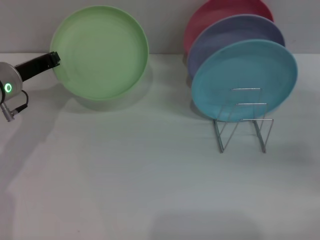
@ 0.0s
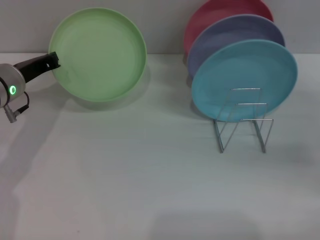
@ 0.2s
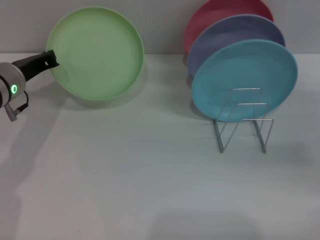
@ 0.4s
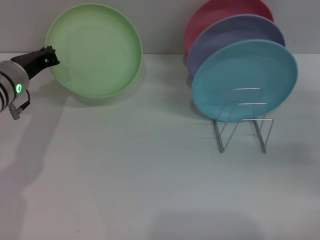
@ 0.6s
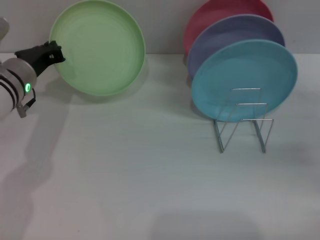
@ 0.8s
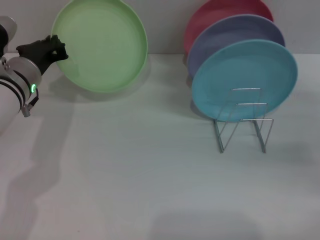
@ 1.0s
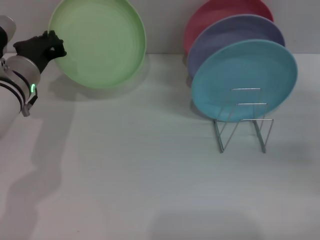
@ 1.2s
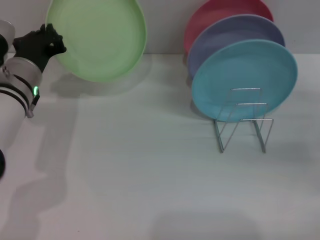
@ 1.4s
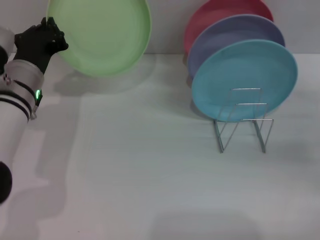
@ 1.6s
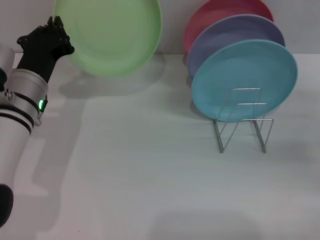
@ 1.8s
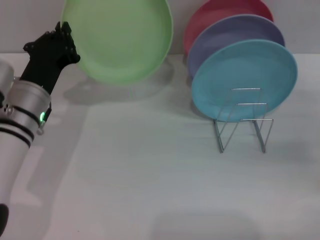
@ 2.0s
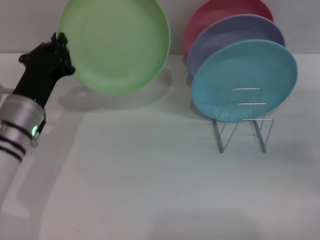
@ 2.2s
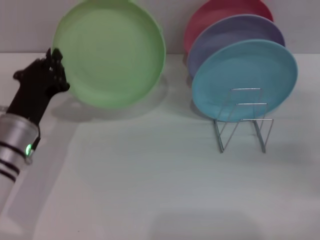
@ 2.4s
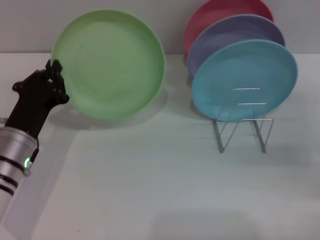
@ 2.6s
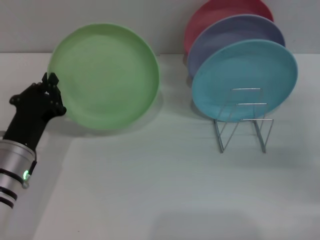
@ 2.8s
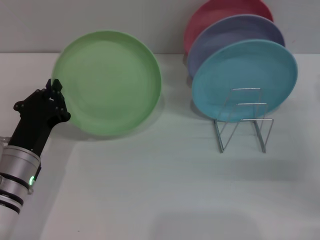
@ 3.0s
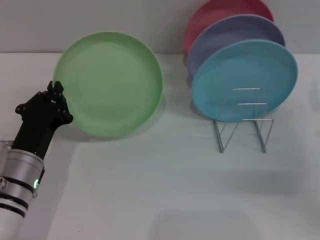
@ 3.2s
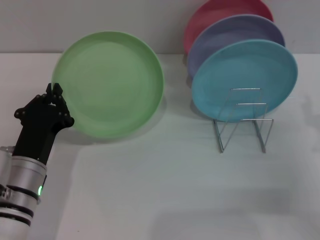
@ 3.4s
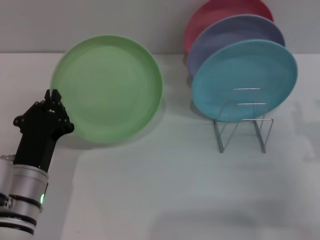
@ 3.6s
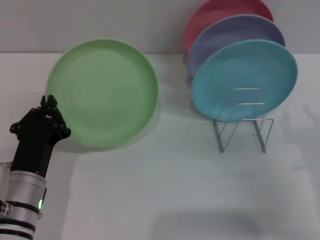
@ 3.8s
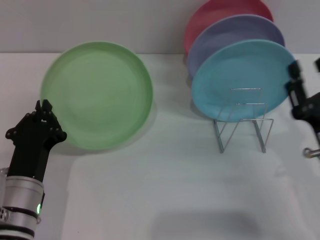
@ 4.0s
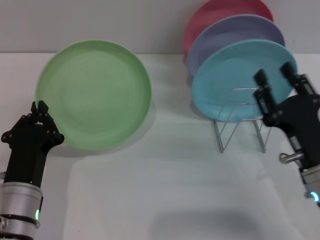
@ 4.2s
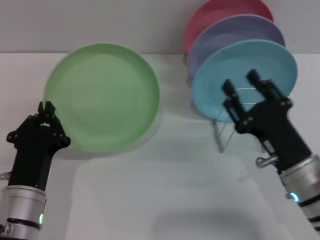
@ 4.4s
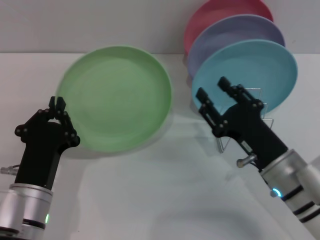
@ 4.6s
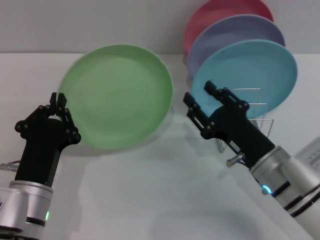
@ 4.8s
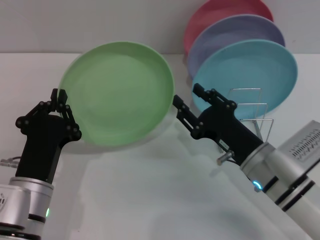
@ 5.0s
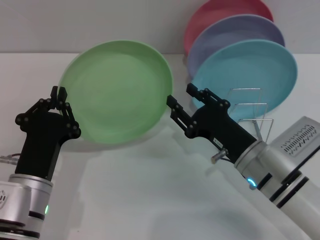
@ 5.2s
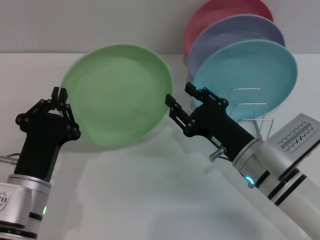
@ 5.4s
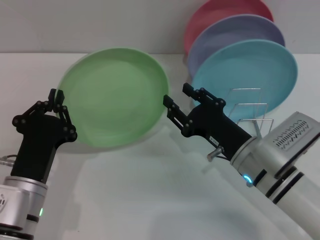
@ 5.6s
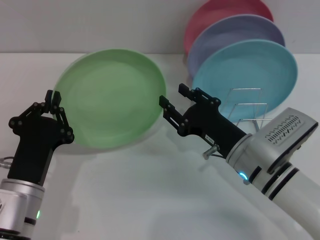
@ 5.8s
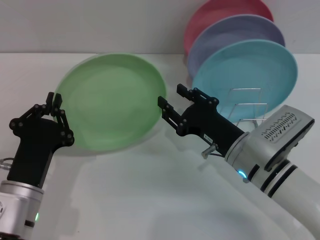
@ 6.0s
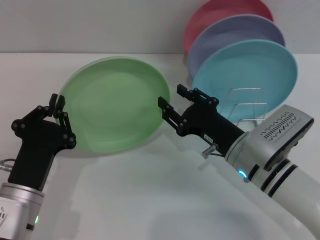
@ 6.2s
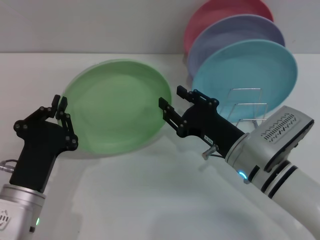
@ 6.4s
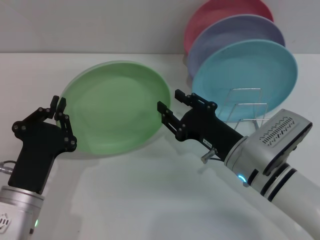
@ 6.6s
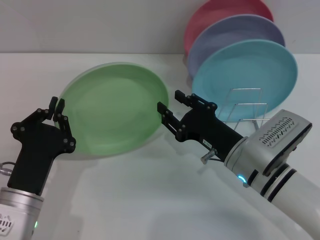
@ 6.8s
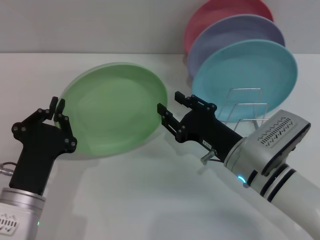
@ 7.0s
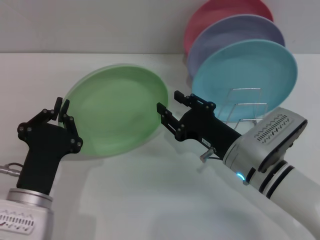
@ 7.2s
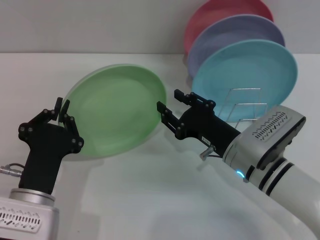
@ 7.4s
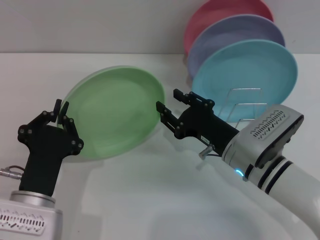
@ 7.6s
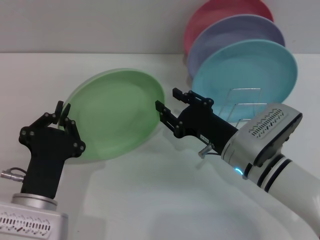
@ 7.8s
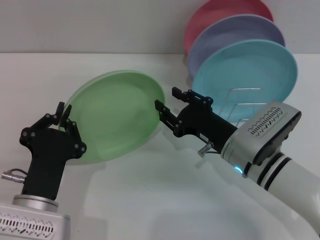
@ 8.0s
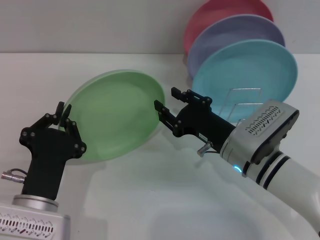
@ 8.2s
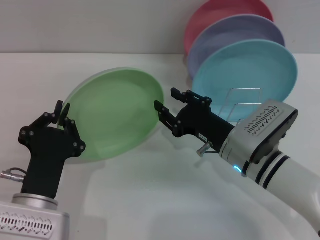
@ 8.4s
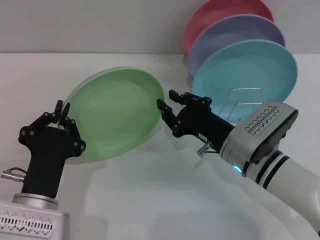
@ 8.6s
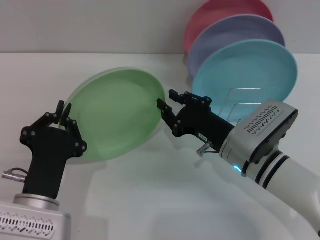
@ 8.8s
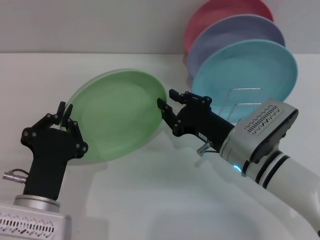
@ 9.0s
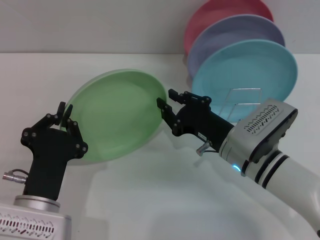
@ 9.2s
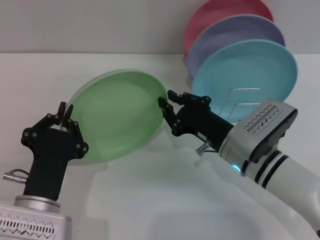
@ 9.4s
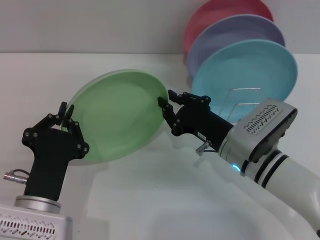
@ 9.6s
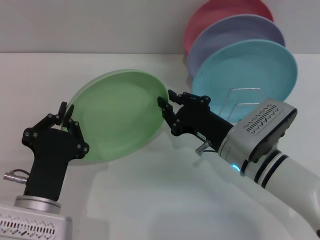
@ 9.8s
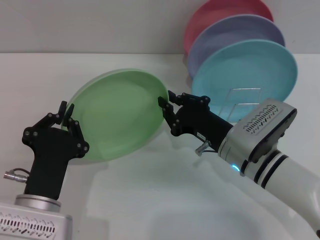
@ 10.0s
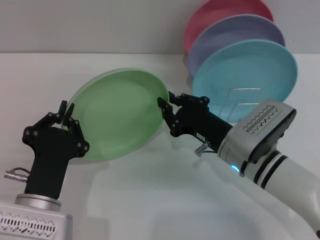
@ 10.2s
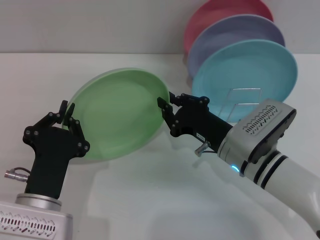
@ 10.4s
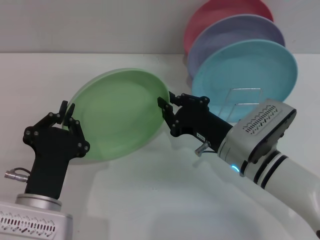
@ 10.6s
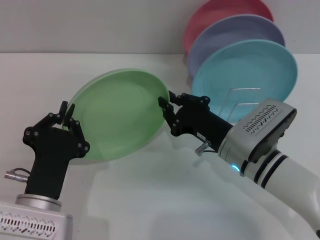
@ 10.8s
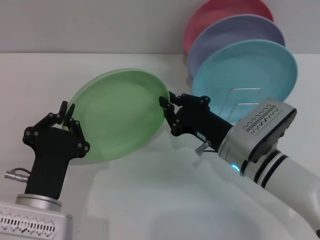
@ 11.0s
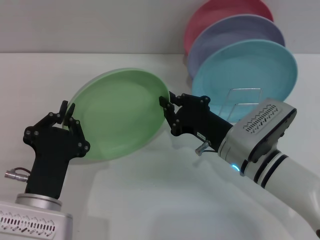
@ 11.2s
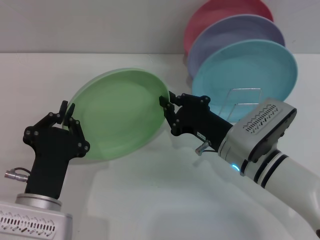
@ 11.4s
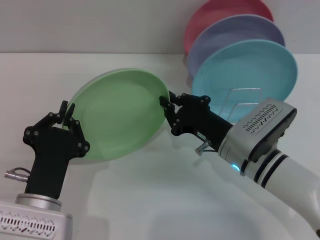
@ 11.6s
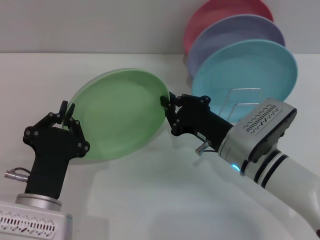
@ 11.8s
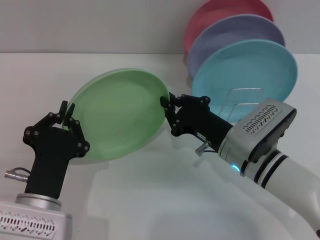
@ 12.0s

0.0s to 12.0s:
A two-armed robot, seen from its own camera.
Task of the whole recording: Grip the plate with one hand, pass it to the other, then set it on the shelf.
0.0s to 1.6s: The left gripper travels to the right by about 5 cm.
1.6s to 3.0s: The left gripper travels backward and downward by approximately 10 cm. Meanwhile the right gripper shifts by some 5 cm.
3.0s to 4.4s: The left gripper travels backward by roughly 5 cm; the right gripper heads to the left and backward, covering about 15 cm.
4.4s to 6.0s: The right gripper moves forward and to the left, some 5 cm.
6.0s to 7.6s: The grippers move only a little.
7.6s to 12.0s: The two grippers keep their place.

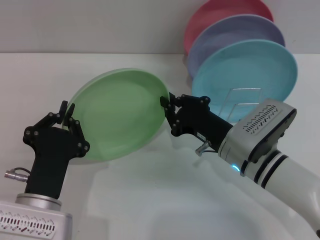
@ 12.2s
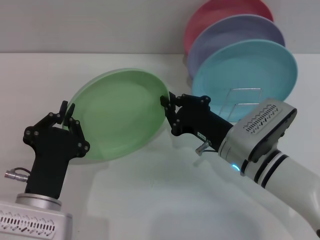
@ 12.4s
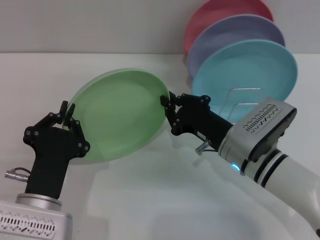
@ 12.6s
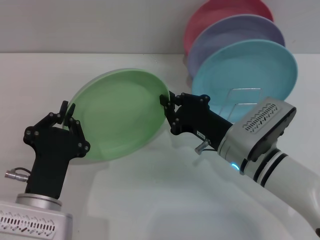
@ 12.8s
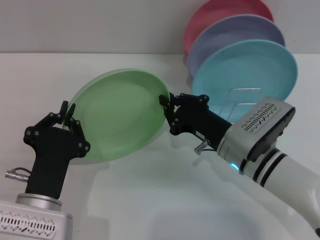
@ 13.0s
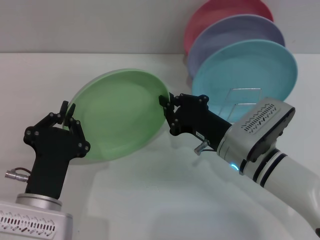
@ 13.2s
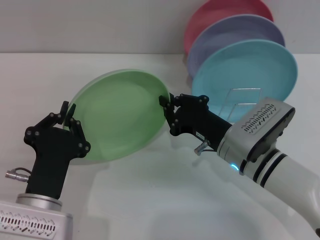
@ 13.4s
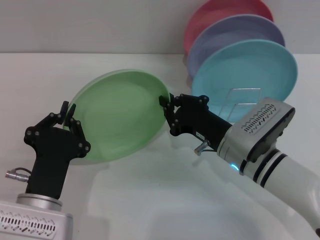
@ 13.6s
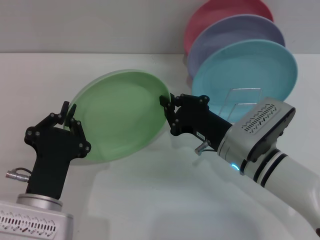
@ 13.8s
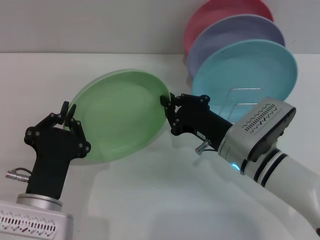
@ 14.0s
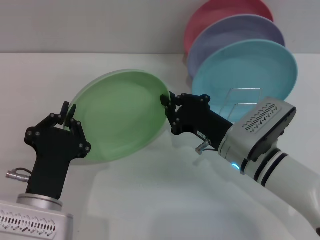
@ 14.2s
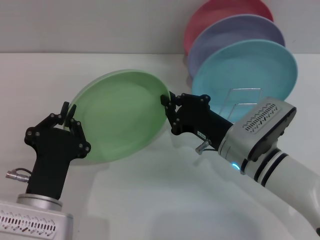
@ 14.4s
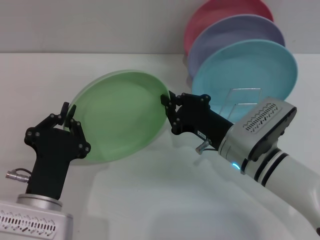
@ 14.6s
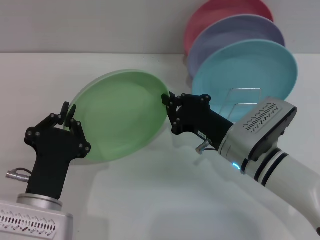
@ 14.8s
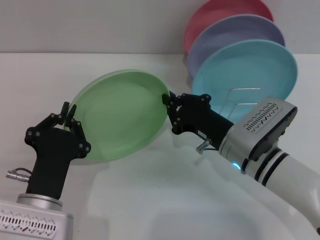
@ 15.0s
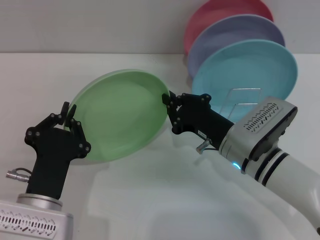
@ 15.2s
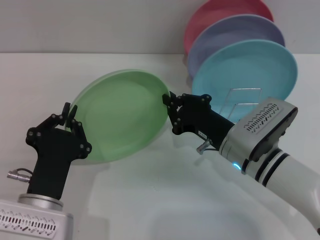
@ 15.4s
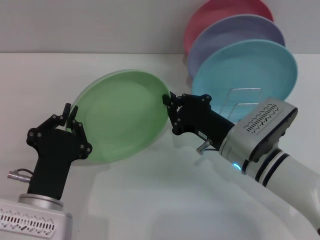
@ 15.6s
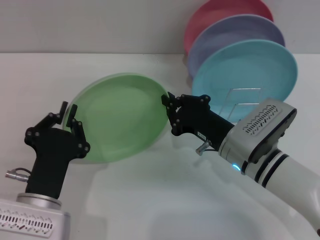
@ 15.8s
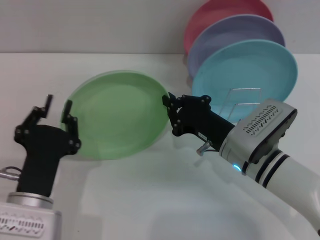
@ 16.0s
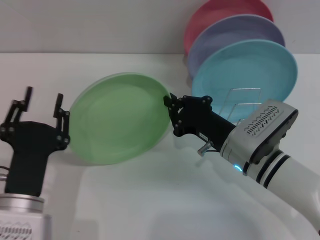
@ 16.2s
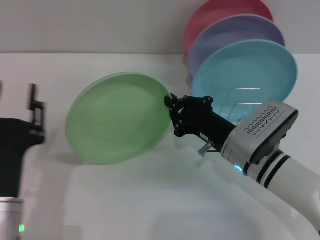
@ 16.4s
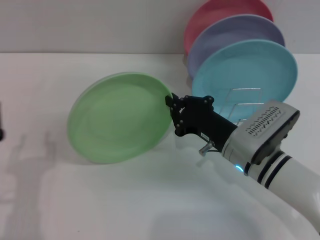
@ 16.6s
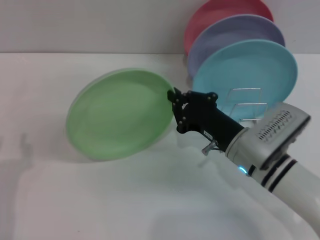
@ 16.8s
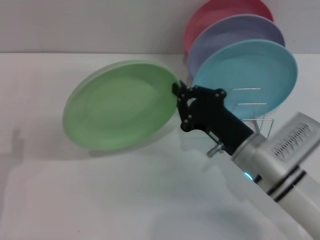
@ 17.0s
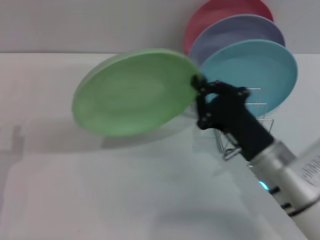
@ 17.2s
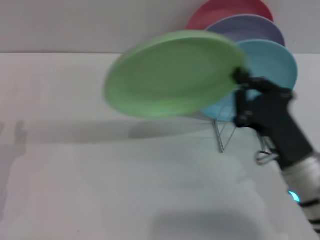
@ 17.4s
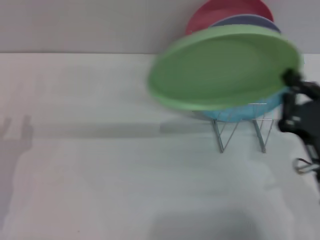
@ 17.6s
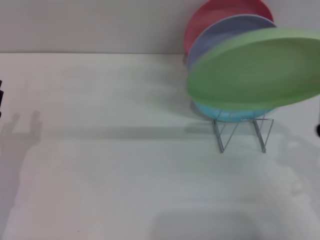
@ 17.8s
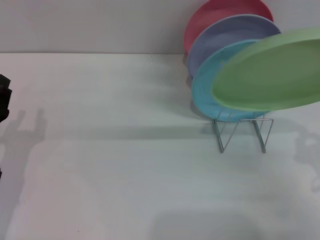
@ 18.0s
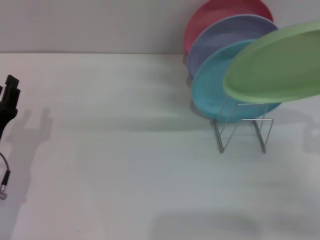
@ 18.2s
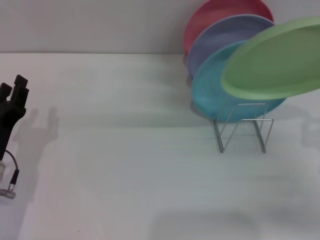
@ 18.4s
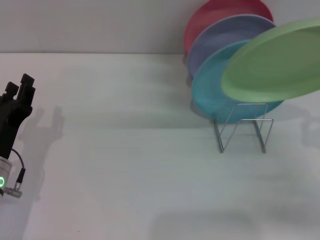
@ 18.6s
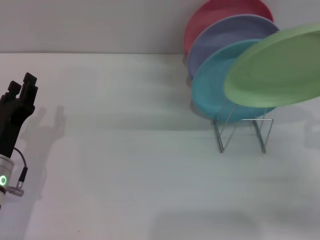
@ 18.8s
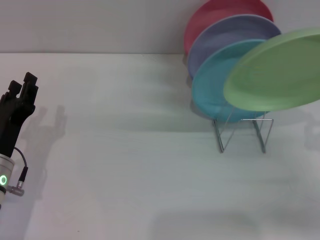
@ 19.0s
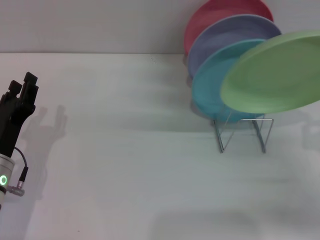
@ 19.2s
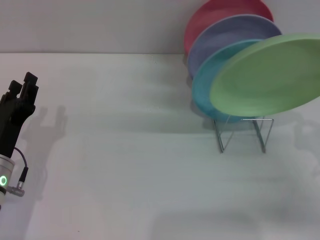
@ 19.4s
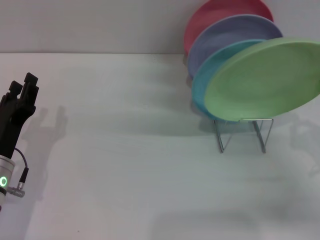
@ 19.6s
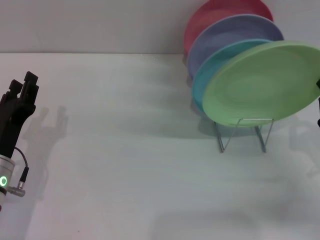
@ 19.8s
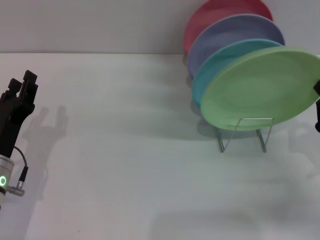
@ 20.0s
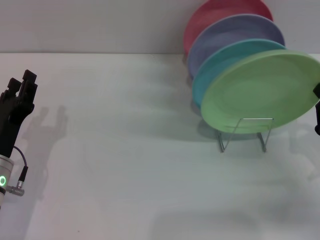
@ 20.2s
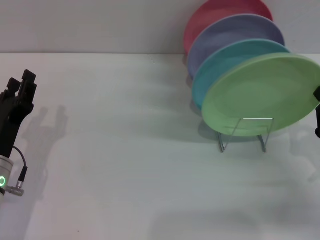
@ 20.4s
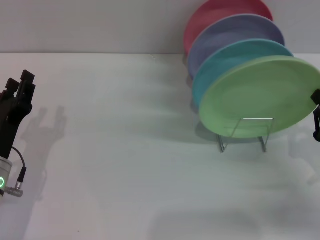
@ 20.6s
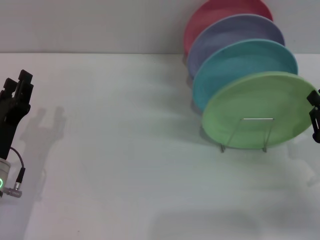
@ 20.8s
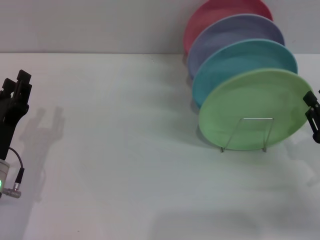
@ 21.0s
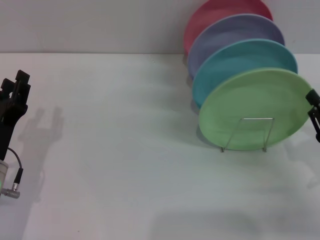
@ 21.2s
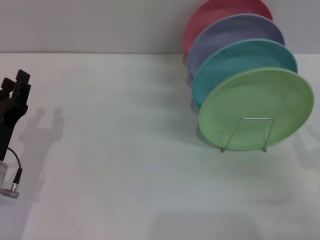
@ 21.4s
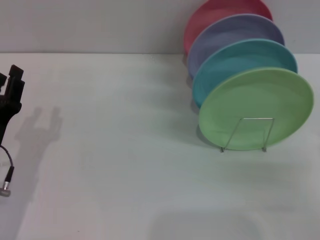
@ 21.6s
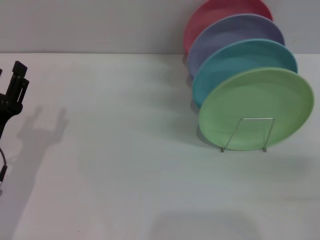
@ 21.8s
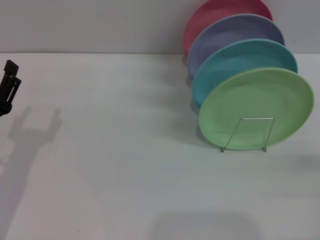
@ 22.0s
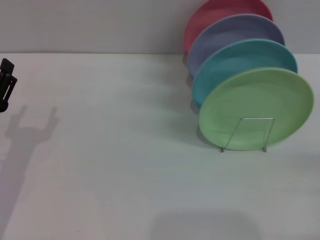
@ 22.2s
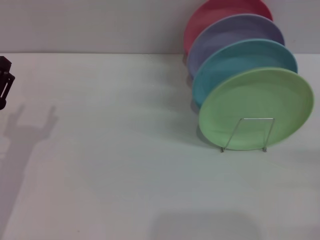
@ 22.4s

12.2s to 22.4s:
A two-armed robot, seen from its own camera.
Task of the whole recording: Grip the plate with one hand, pass it to the other, then set it on the shelf.
Step, 12.2s to 16.0s: Pass the plate from the left gripper to the right gripper.
Step, 16.4s to 21.2s: Place the plate on the shelf with the right gripper.
12.2s to 15.2s: Both grippers stay put.
15.2s to 16.6s: The left gripper ends up approximately 5 cm from where it was, and opens up.
16.6s to 18.0s: The left gripper shifts approximately 10 cm forward and to the left. Meanwhile the right gripper is displaced to the right and backward by about 20 cm.
18.0s to 21.0s: The grippers stay close to where they were, moving slightly.
21.0s to 22.4s: The left gripper opens its fingers, while the right gripper heads to the right, covering about 5 cm, and opens.
